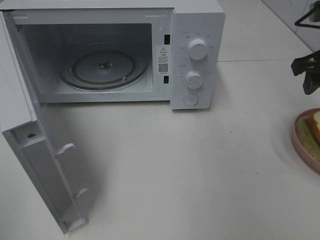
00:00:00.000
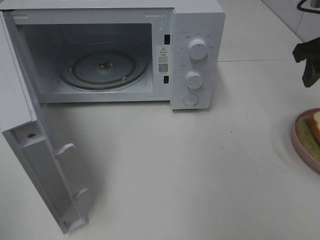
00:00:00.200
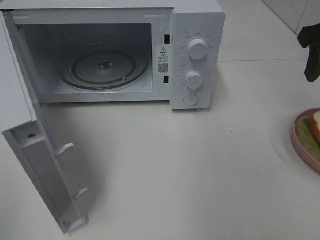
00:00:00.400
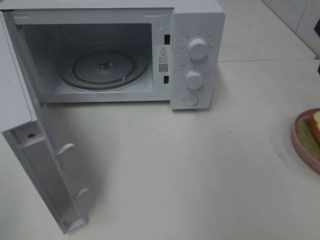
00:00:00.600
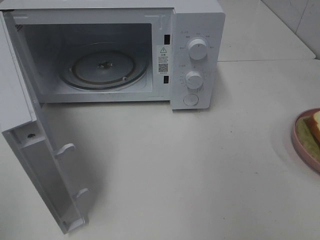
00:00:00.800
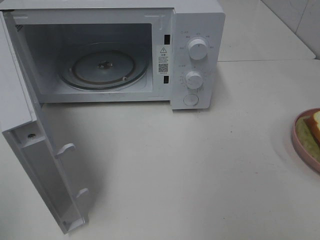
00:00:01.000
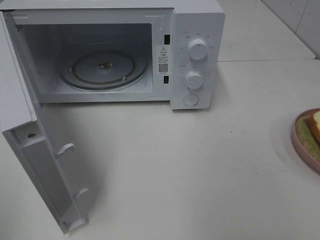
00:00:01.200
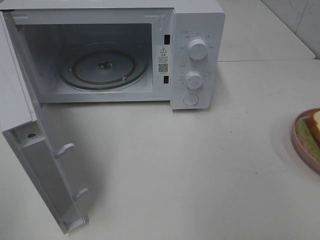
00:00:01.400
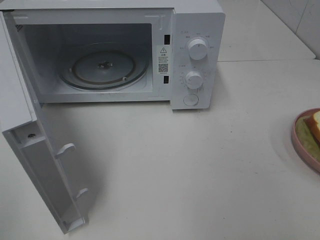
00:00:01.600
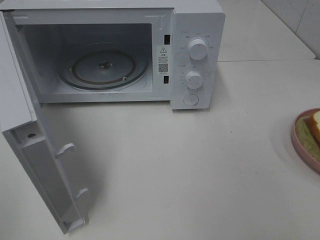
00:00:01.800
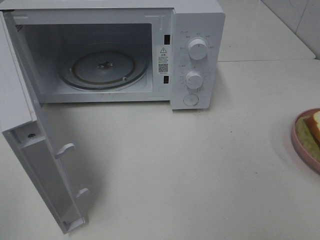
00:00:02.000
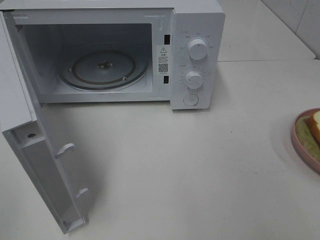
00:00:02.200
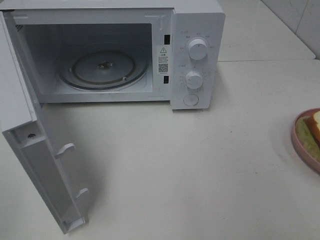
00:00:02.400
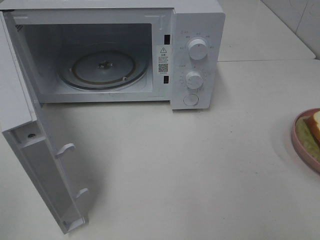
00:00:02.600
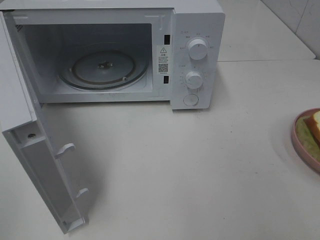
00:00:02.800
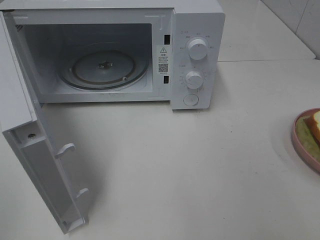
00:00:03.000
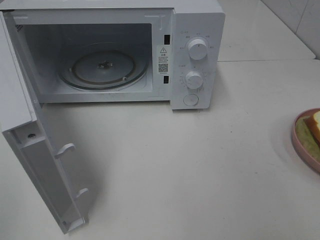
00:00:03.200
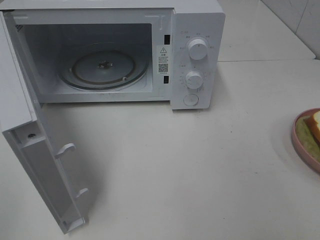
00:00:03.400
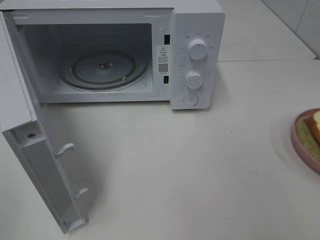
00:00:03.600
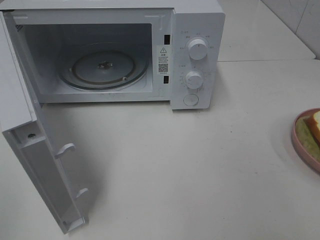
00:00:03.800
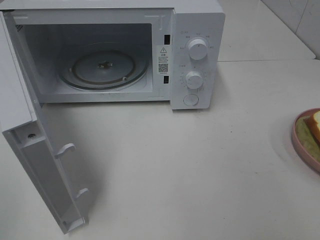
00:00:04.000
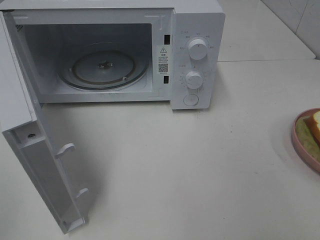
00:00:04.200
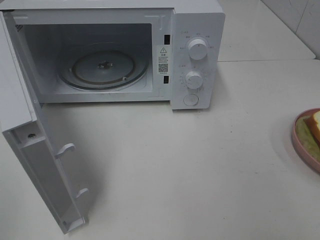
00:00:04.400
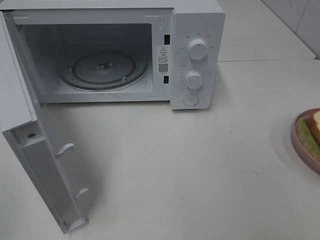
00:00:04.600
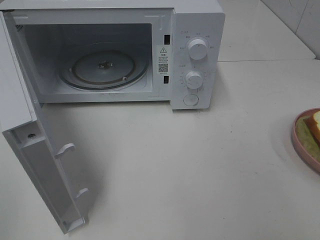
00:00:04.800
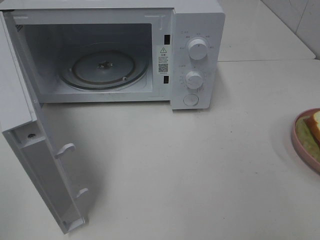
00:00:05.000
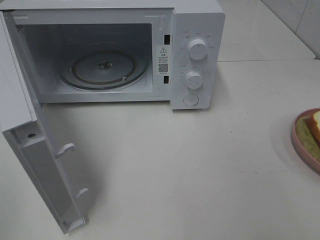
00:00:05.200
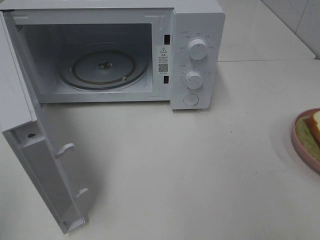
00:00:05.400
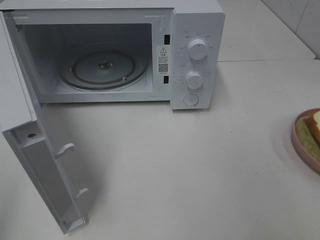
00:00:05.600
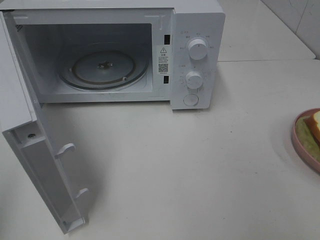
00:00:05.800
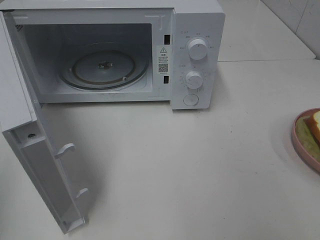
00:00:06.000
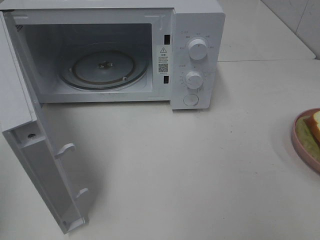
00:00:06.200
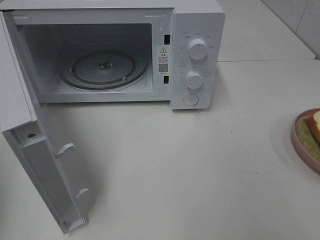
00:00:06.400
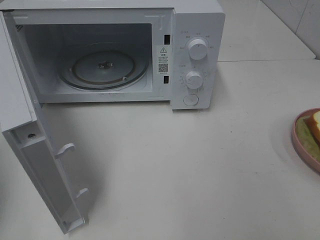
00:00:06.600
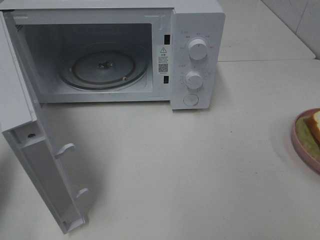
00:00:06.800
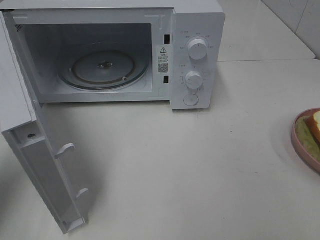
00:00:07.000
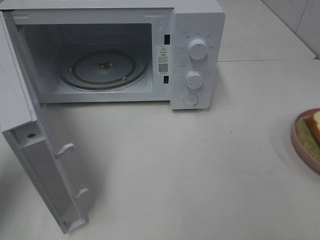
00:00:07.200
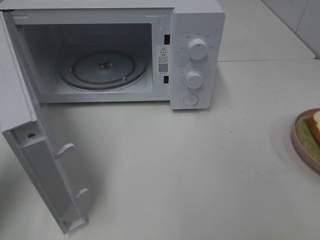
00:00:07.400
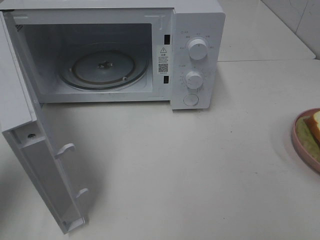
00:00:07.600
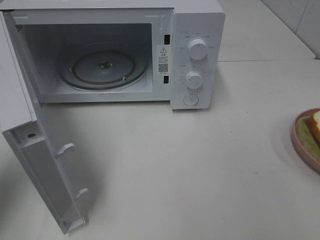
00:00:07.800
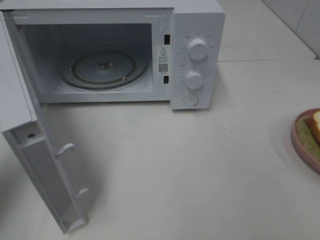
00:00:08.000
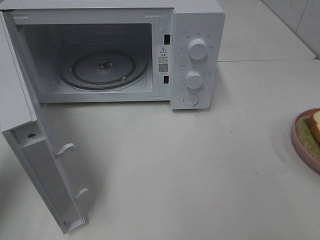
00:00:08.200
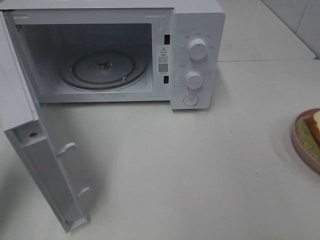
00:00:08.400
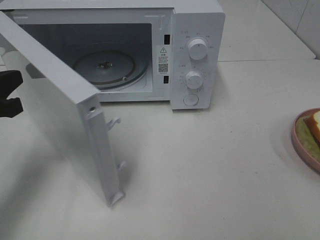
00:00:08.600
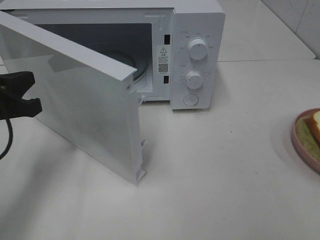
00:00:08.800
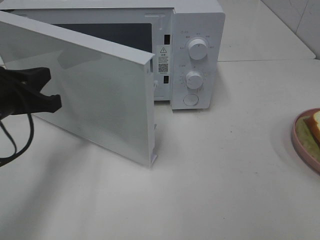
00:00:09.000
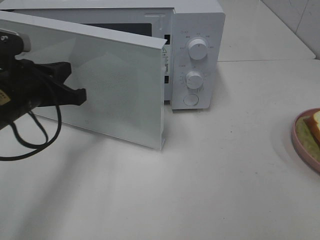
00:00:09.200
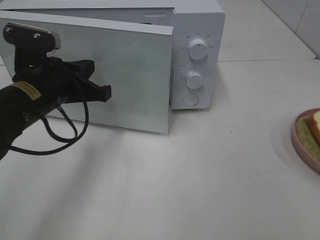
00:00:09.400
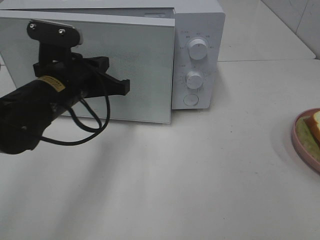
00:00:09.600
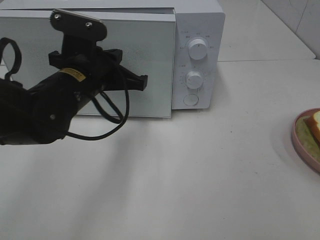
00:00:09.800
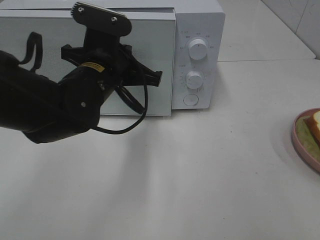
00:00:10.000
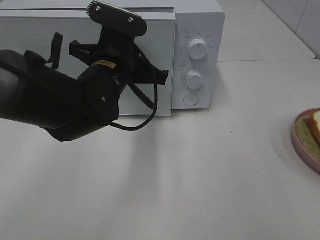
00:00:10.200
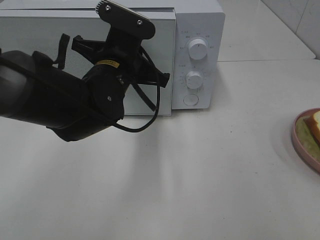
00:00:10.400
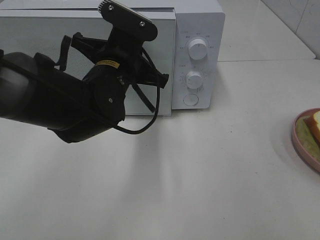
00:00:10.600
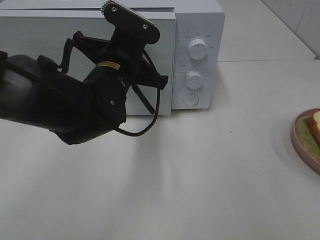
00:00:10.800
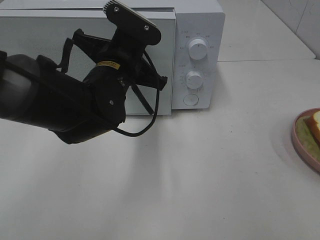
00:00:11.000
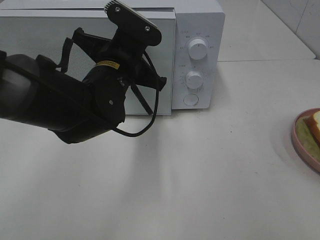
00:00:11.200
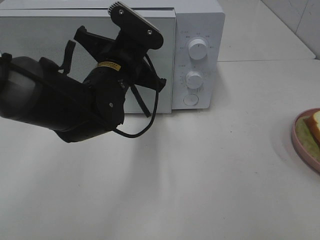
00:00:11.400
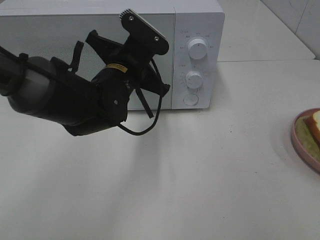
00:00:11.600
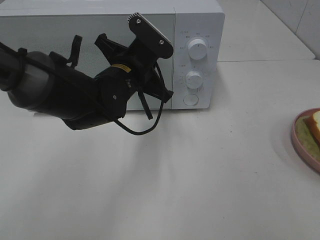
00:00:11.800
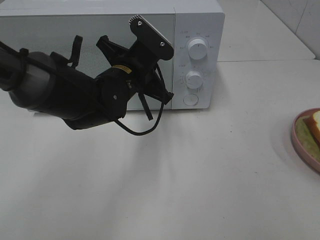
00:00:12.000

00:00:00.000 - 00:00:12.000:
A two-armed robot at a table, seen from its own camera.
Task of the whole recording: Heat Sandwich.
00:00:00.000 - 00:00:01.600: The right gripper heads backward, covering approximately 25 cm.
00:00:03.000 - 00:00:04.400: The two grippers keep their place.
00:00:06.000 - 00:00:07.600: The left gripper travels forward and downward by roughly 15 cm.
00:00:07.600 - 00:00:09.000: The left gripper is displaced to the right by approximately 10 cm.
00:00:09.000 - 00:00:10.400: The left gripper moves to the right, some 15 cm.
00:00:10.400 - 00:00:12.000: The grippers move only a little.

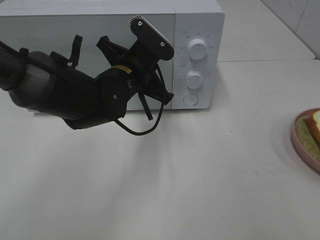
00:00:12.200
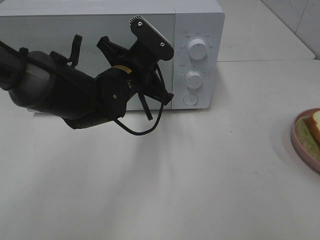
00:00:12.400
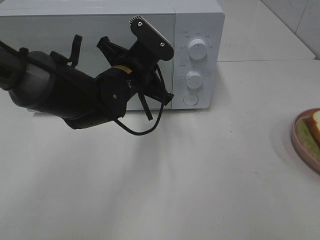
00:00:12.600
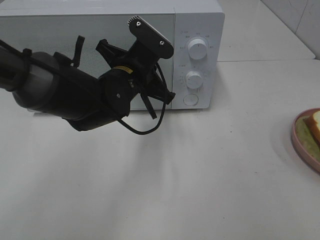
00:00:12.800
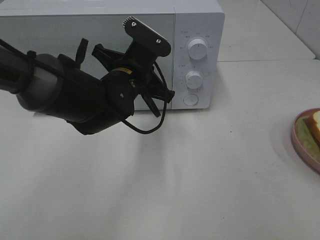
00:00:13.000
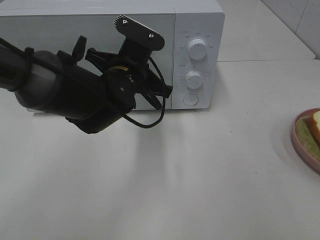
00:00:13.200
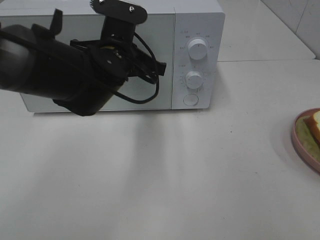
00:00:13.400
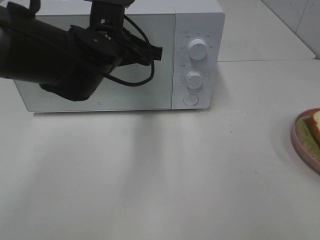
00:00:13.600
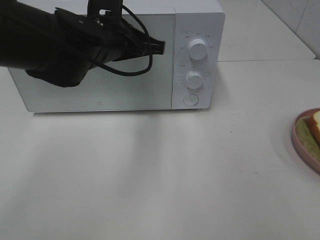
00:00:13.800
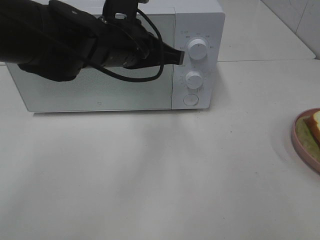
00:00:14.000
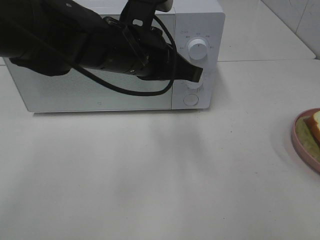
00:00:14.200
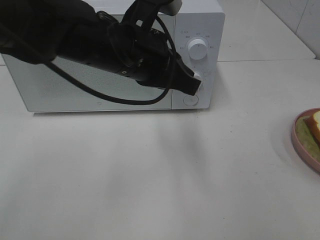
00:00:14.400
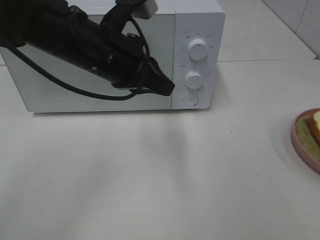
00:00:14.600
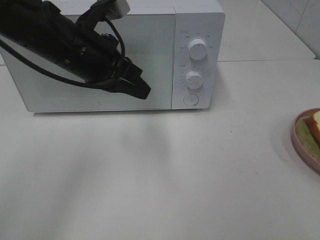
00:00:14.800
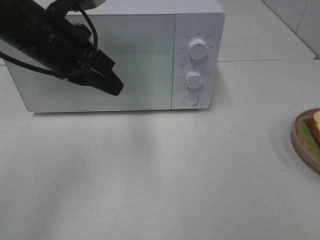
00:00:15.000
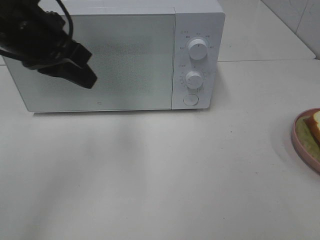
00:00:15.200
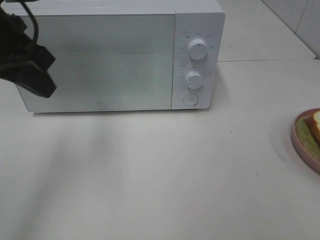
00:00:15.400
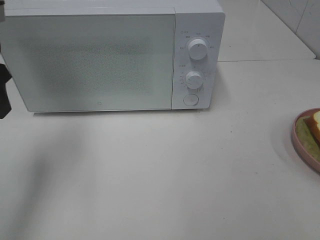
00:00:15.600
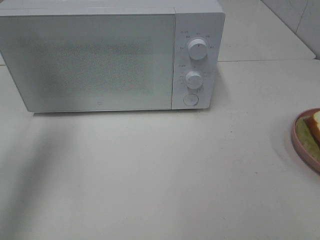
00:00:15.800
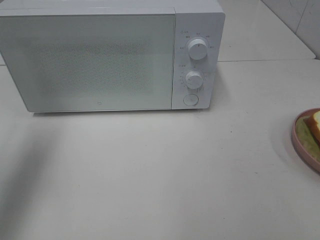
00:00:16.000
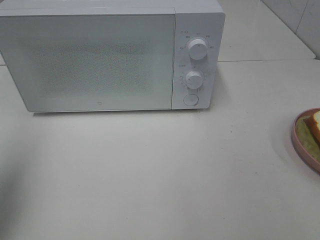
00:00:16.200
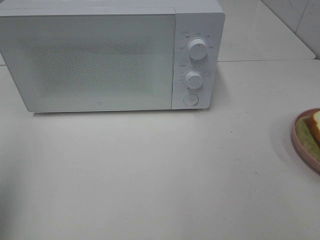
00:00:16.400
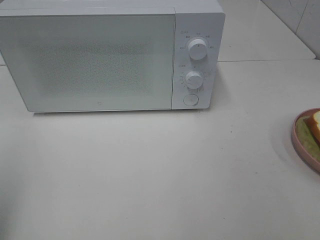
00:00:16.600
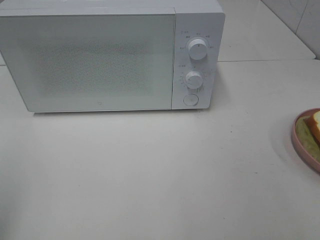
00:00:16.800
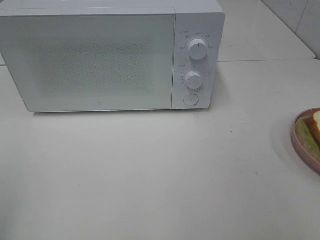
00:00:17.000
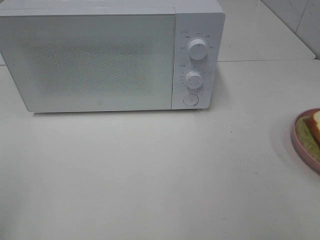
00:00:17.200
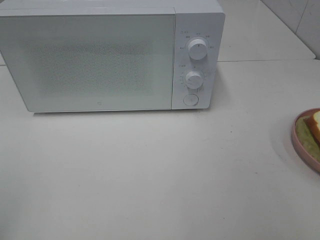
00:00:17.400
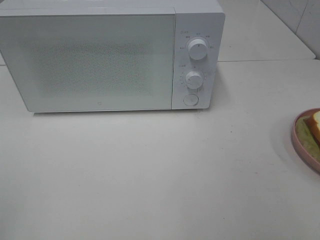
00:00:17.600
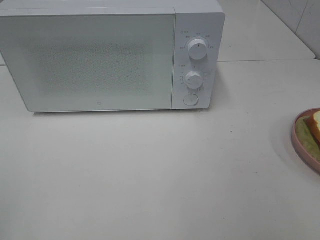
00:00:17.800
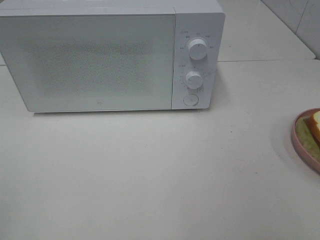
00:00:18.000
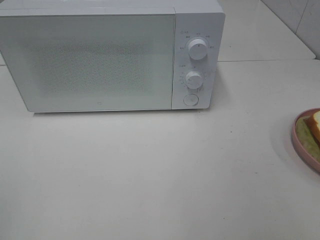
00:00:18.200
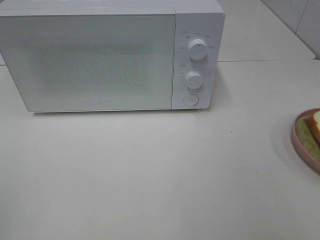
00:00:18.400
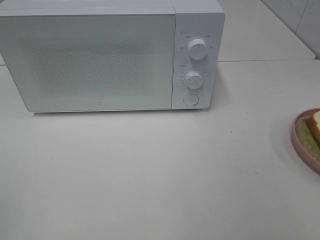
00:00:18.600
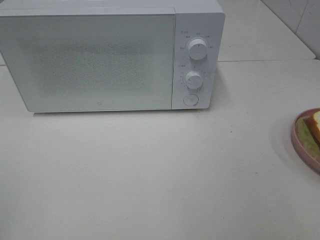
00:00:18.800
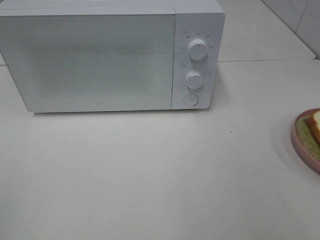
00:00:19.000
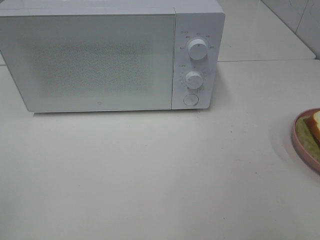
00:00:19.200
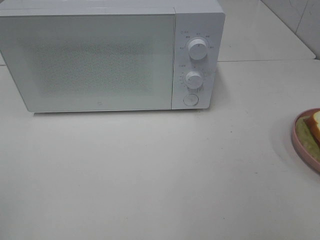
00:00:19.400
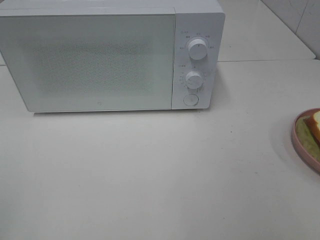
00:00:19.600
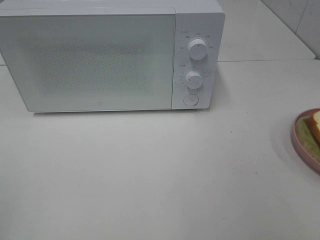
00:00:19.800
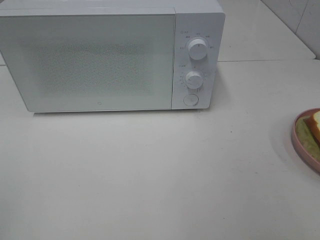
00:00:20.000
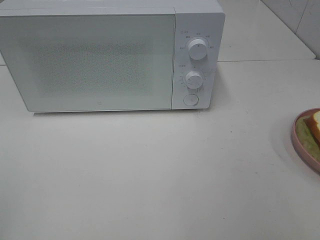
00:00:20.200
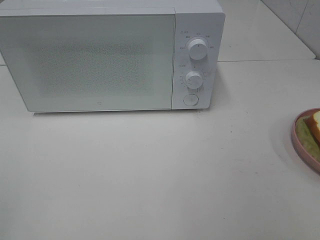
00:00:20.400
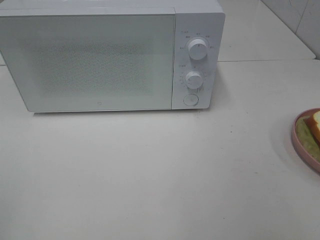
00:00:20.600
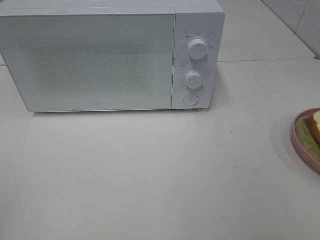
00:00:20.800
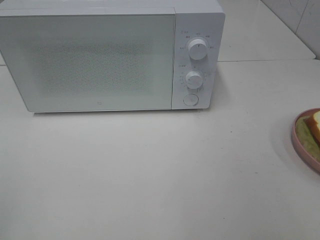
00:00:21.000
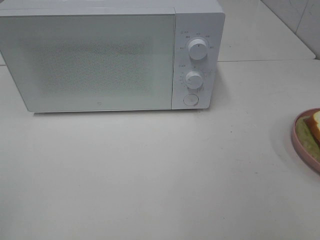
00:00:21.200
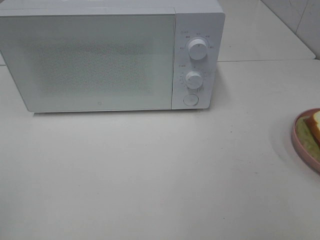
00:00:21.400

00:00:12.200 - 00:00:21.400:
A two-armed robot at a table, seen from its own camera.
Task of the whole recording: Heat Sandwich.
00:00:12.200 - 00:00:13.800: The left gripper is displaced upward by approximately 5 cm.
00:00:13.800 - 00:00:15.200: The left gripper is displaced to the left and upward by approximately 10 cm.
00:00:15.200 - 00:00:16.800: The left gripper travels backward and to the left by some 25 cm, and opens.
00:00:18.400 - 00:00:21.400: The two grippers keep their place.

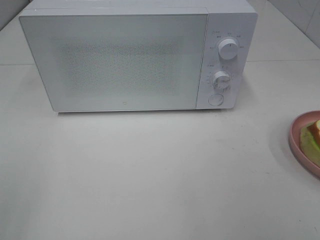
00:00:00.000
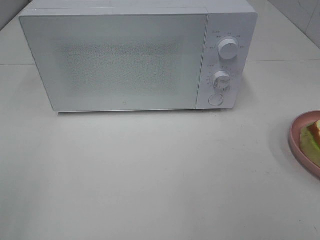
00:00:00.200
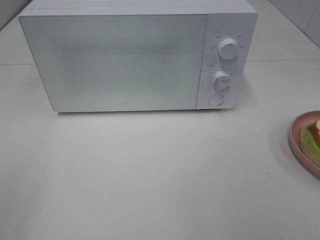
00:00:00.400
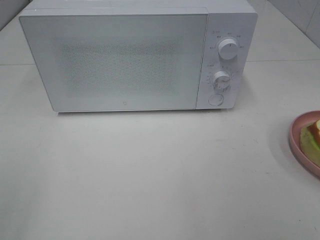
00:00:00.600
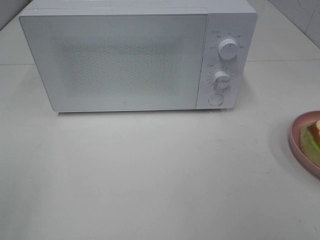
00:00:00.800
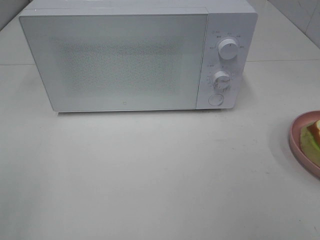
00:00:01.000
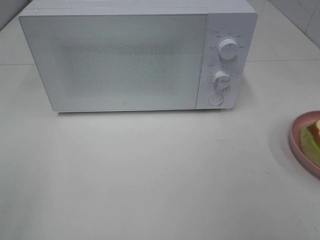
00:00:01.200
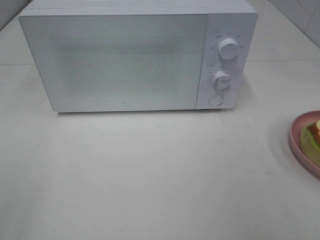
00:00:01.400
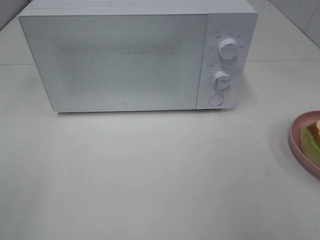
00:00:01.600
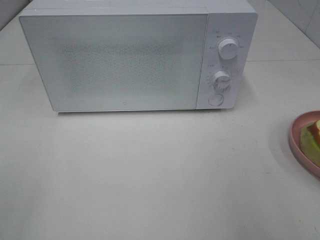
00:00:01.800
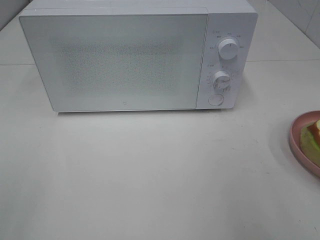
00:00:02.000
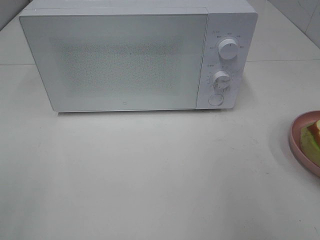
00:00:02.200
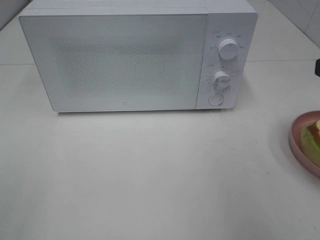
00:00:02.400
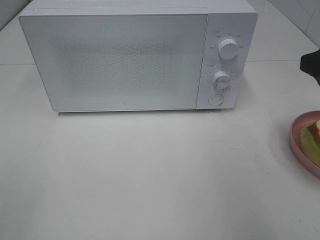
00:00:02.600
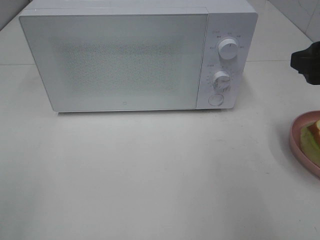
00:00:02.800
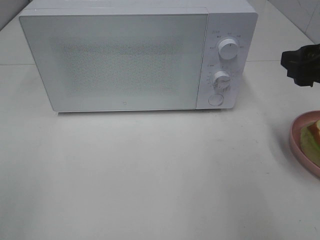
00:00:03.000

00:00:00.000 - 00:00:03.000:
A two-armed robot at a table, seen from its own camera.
Task of the whole recording: Heat Sandwich.
00:00:01.600 - 00:00:03.000: The right gripper travels forward and downward by approximately 15 cm.
